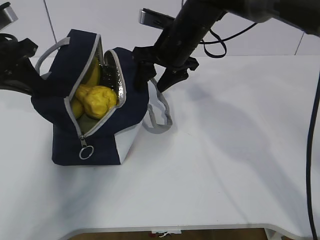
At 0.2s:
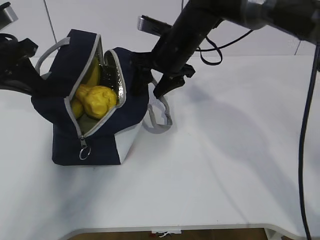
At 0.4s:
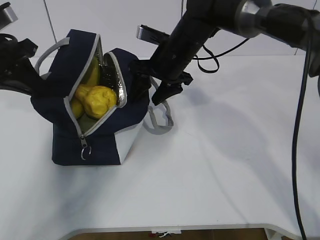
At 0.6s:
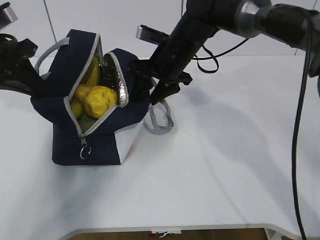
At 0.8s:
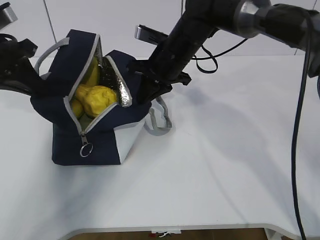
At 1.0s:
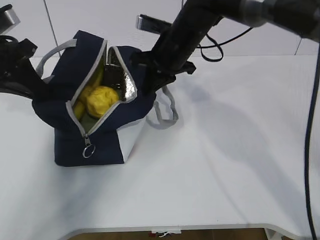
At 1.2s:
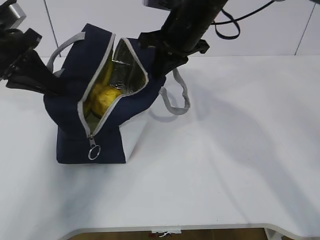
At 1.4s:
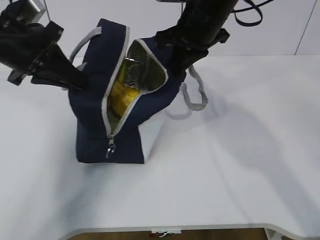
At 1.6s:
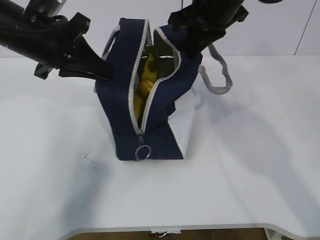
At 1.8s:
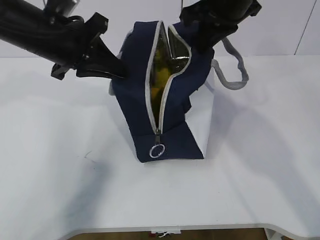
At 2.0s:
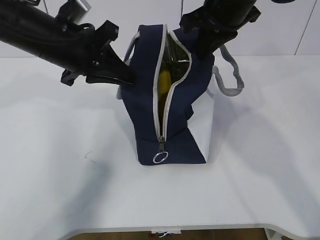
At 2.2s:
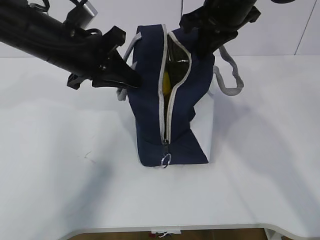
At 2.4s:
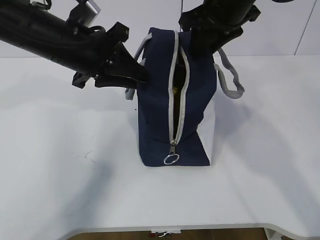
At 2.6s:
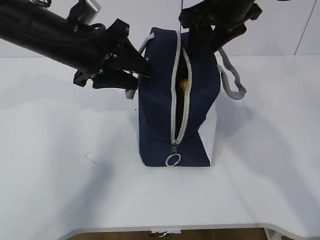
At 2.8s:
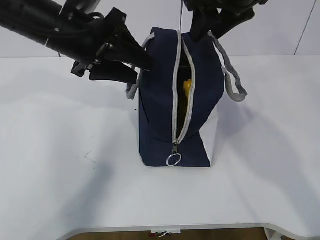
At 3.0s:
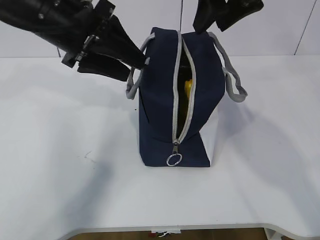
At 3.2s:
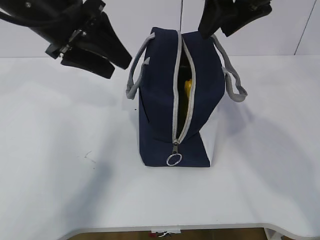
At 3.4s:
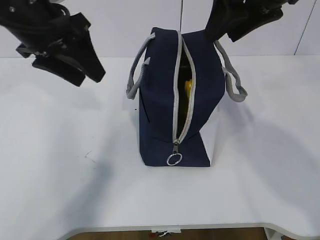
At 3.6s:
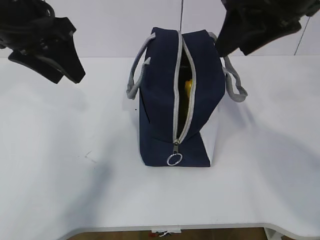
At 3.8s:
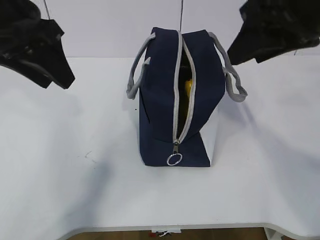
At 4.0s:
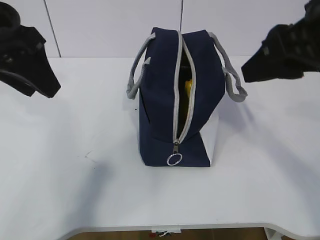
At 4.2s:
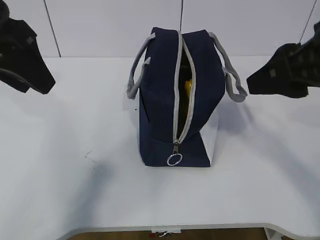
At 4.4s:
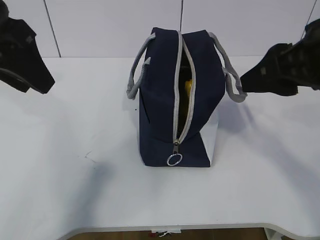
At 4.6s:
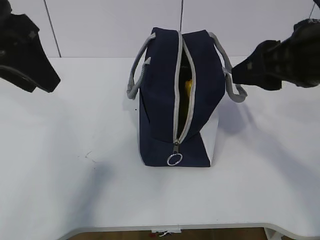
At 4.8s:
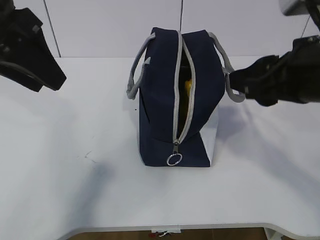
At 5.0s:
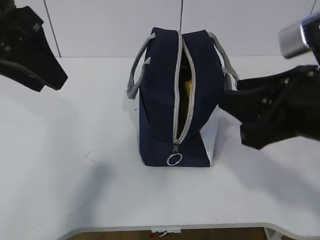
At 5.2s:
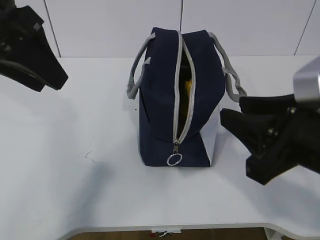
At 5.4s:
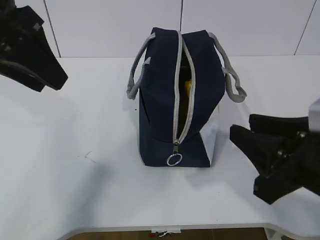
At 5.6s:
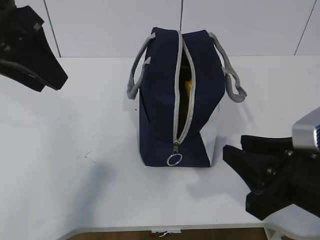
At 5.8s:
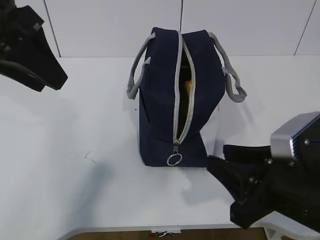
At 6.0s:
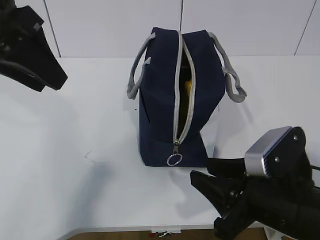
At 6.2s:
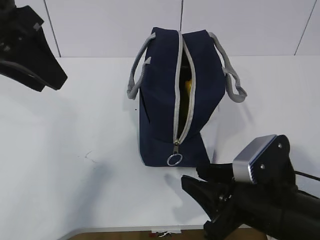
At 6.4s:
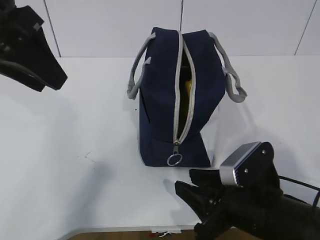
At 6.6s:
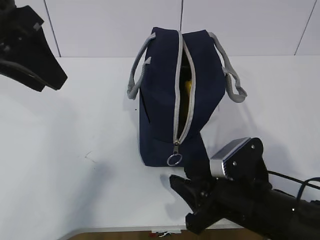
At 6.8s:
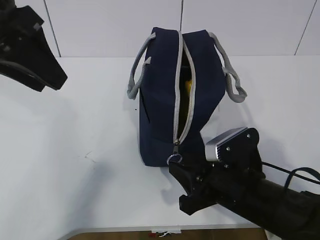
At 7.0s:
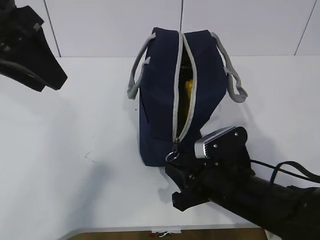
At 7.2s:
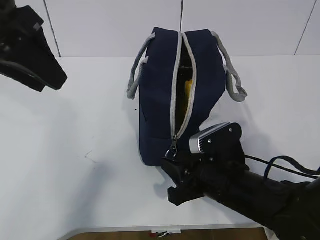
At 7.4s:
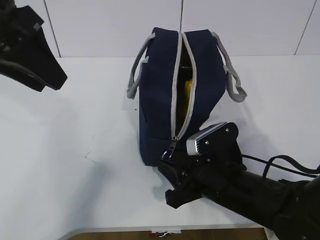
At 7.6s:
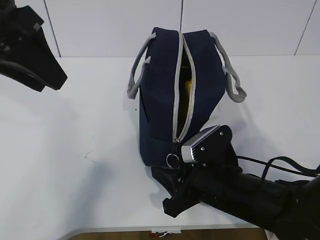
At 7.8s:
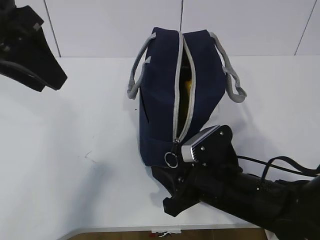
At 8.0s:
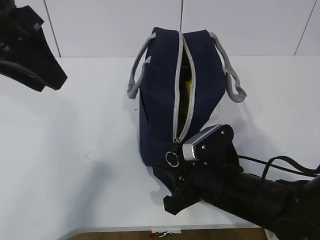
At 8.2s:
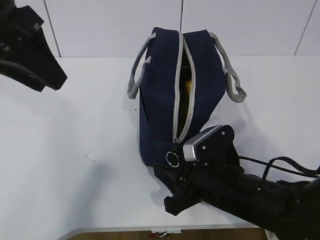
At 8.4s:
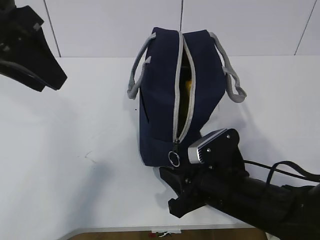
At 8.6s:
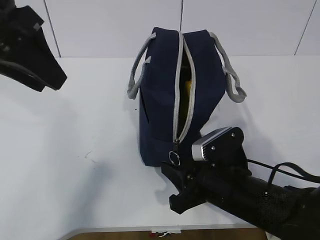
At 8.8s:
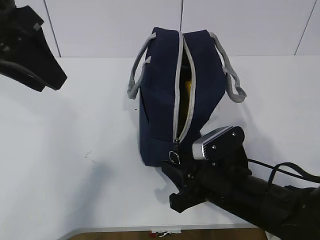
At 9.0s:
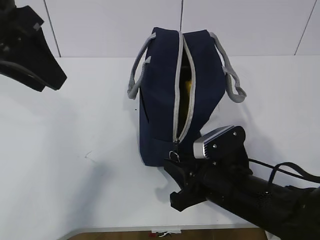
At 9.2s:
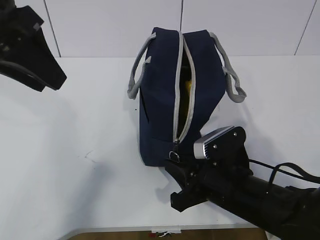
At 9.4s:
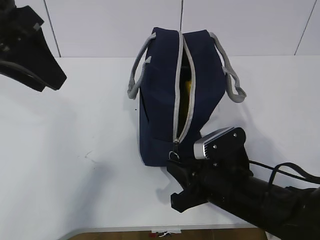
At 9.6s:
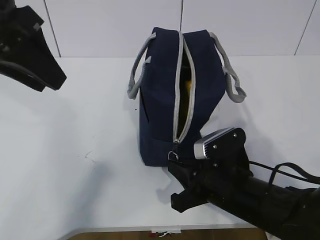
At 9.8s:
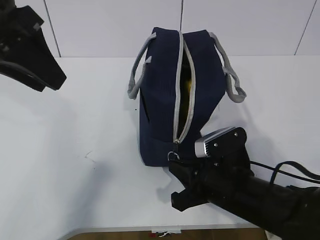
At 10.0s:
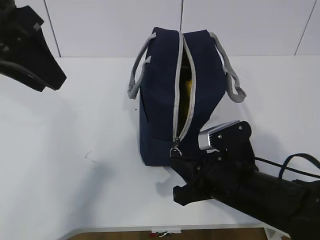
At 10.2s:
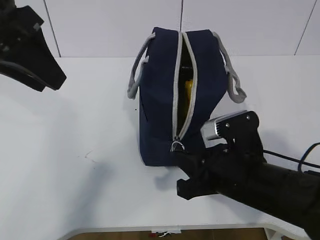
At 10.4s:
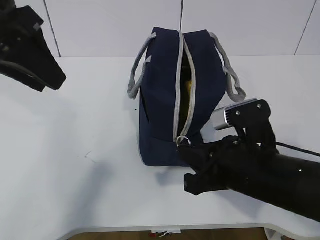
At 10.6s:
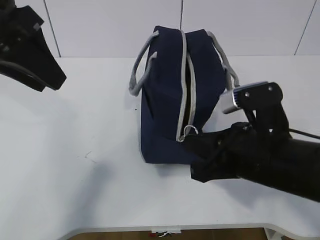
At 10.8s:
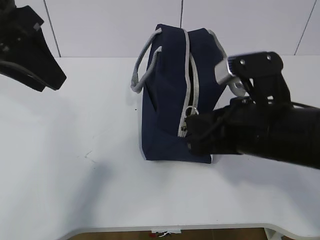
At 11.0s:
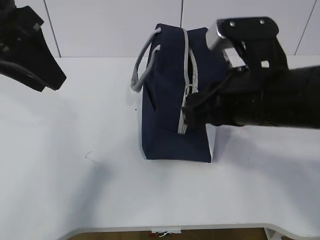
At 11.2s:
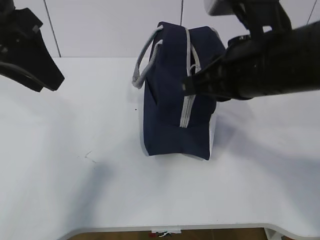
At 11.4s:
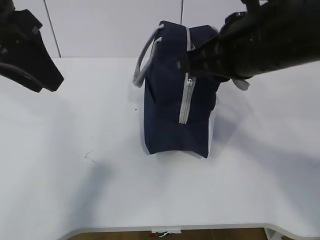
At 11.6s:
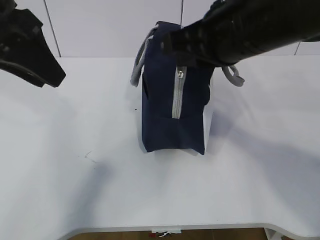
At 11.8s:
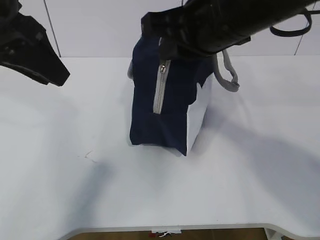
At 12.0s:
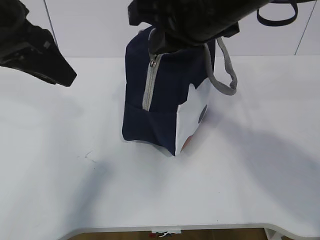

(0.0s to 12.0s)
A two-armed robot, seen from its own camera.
0.0s - 1.6s: The left gripper goes approximately 10 cm to the right; the right gripper travels upward by some 10 cm, and closes.
1.6s - 3.0s: The left gripper opens its fingers, while the right gripper moves about 5 cm, and opens up.
3.0s - 4.4s: The right gripper is displaced backward by approximately 15 cm. Meanwhile the left gripper shifts some 10 cm backward and to the left.
4.4s - 6.0s: The right gripper shifts roughly 15 cm downward.
6.0s - 7.6s: The right gripper heads forward, downward and to the left, covering some 10 cm.
7.6s - 9.0s: There are only small adjustments of the grippers.
9.0s - 10.4s: The right gripper is displaced upward by some 5 cm, and closes.
10.4s - 12.0s: The right gripper moves upward and forward, some 20 cm.

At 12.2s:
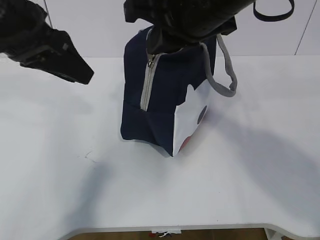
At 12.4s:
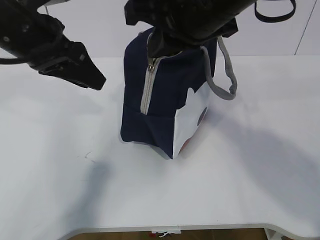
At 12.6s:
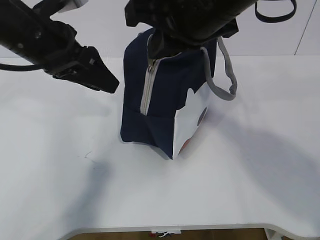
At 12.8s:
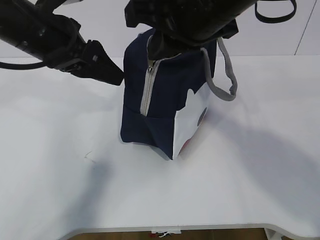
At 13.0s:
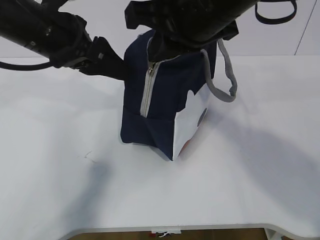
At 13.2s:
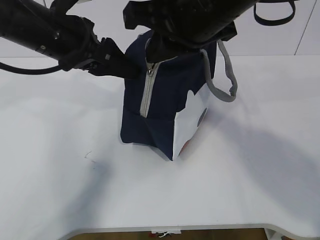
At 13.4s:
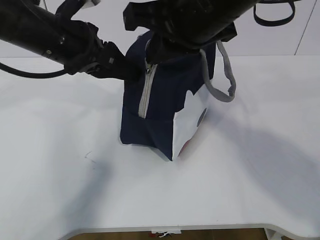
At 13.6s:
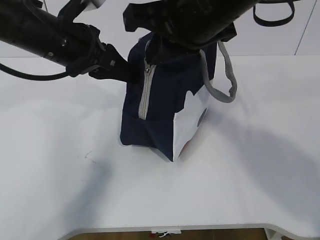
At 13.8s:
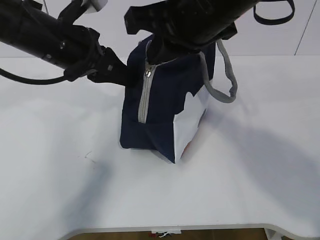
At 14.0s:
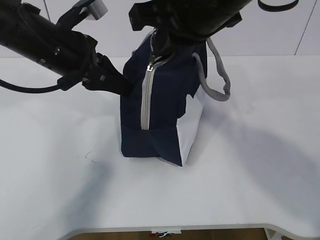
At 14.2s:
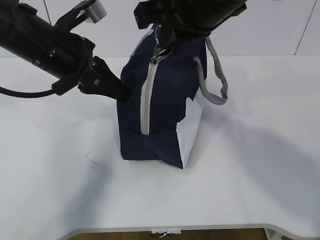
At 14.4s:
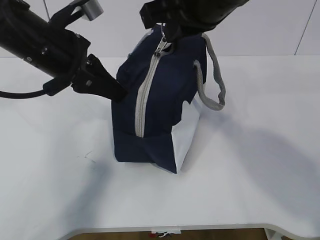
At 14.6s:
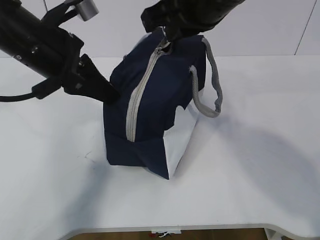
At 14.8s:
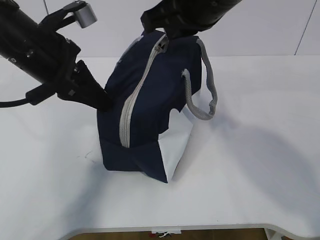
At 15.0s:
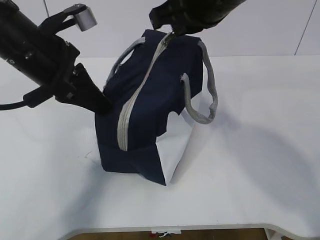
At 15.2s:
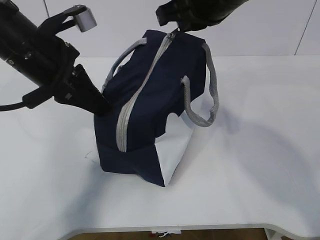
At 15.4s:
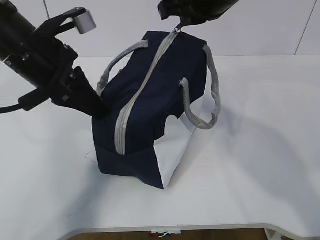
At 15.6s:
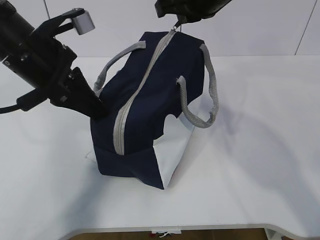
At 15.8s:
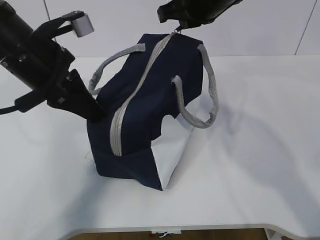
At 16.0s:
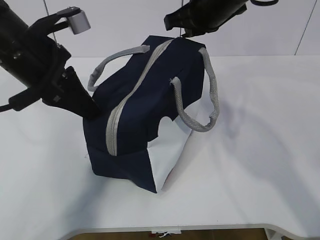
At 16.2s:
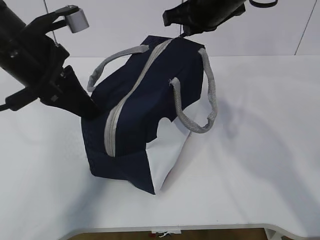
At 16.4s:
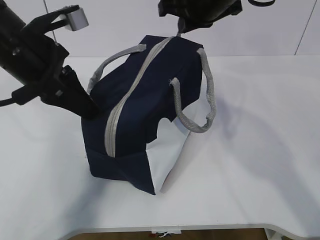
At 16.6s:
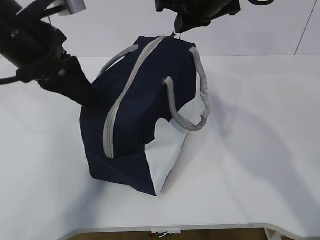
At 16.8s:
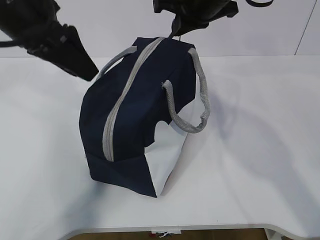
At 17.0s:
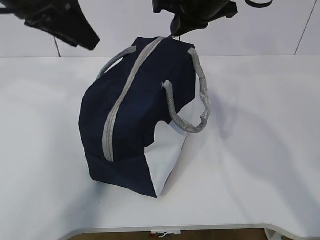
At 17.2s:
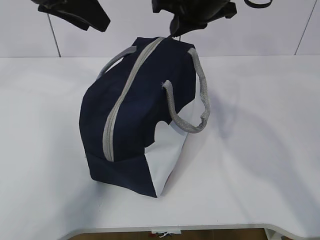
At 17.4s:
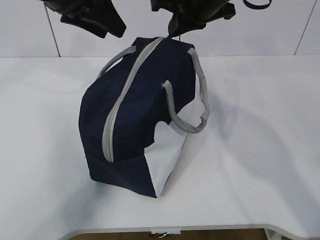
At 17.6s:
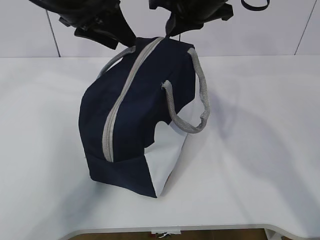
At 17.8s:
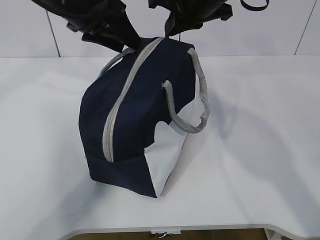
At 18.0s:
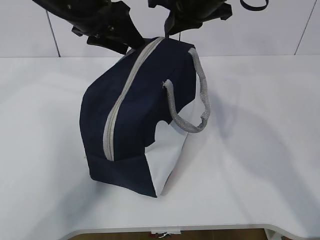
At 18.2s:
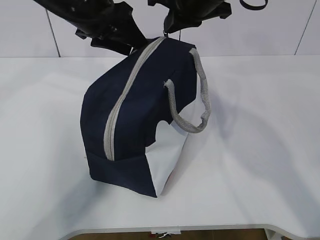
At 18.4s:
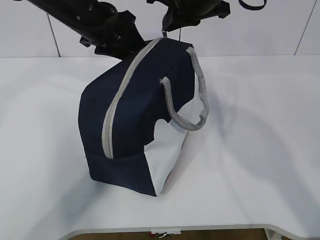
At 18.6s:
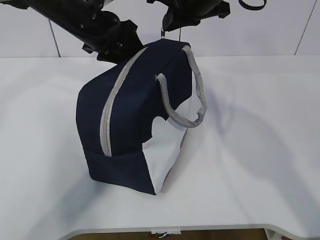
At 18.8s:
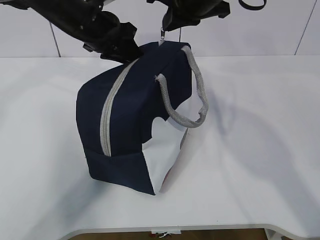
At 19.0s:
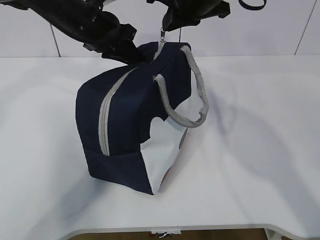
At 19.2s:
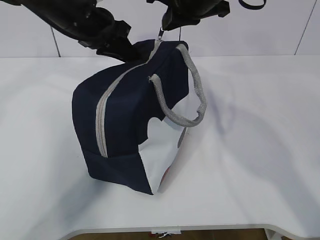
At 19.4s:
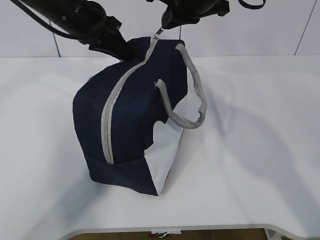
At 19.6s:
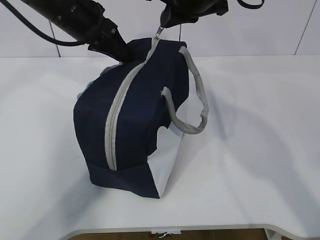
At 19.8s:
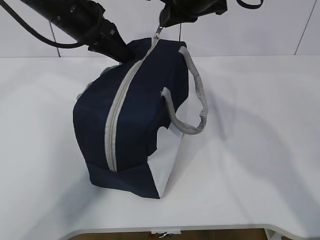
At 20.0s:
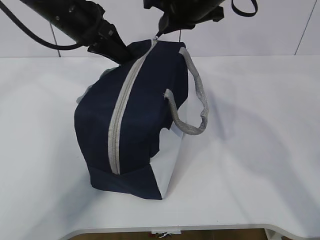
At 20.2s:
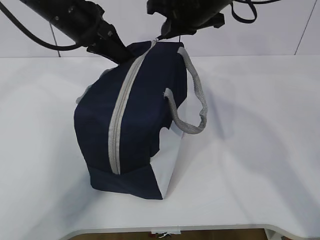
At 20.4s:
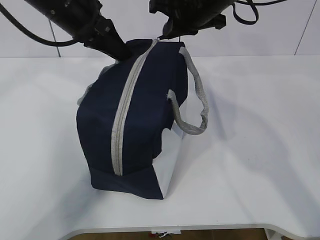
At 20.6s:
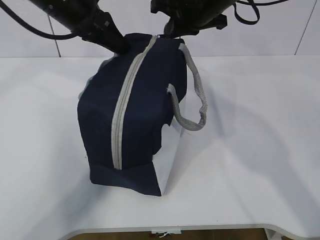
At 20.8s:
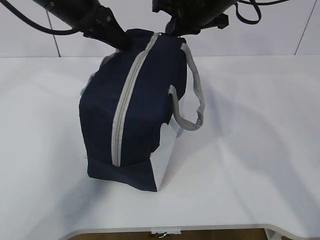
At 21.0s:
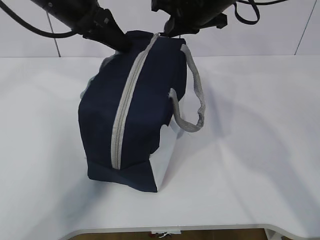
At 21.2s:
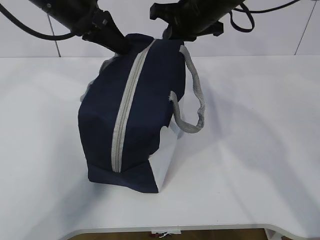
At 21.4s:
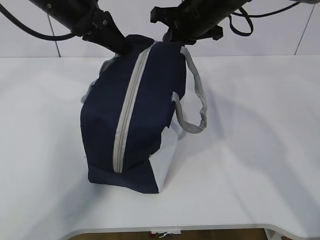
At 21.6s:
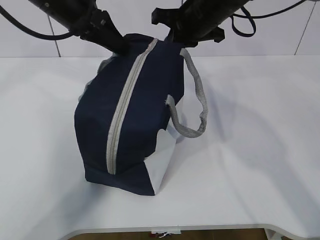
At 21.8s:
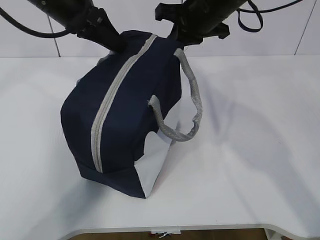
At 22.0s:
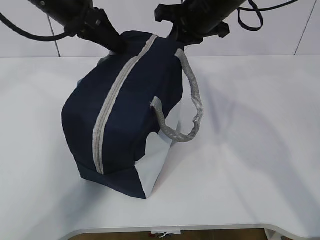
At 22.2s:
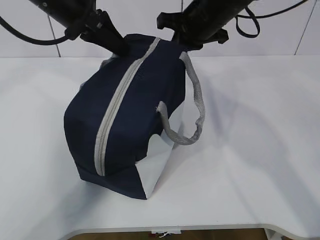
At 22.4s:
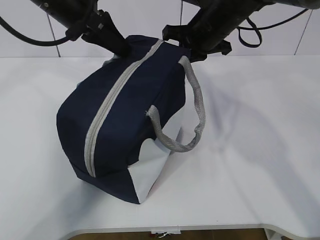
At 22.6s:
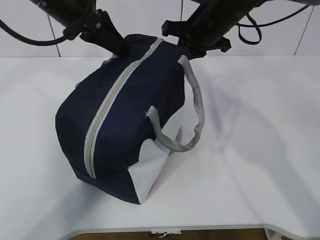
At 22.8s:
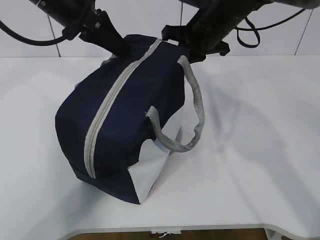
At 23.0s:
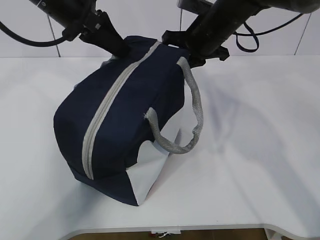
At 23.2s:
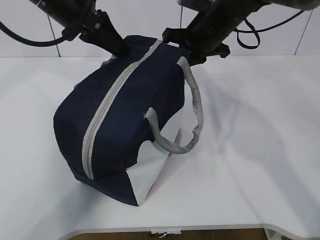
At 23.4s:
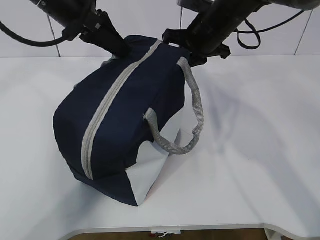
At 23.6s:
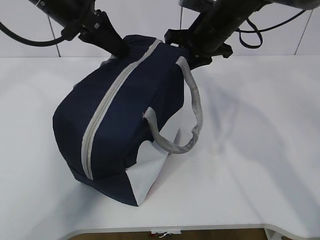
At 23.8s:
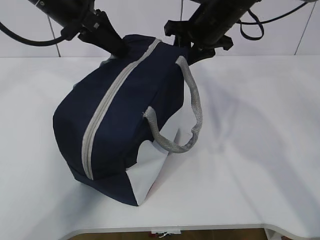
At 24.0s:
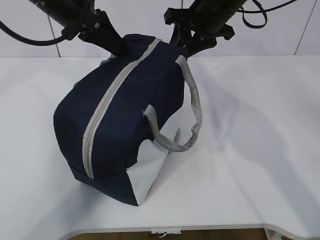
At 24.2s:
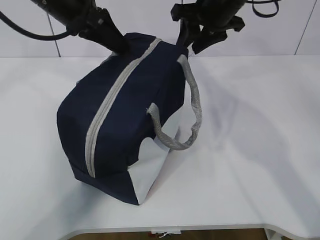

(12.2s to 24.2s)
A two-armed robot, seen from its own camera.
12.2s - 13.8s: The left gripper goes roughly 10 cm downward and forward, and closes.
13.8s - 15.2s: The right gripper goes some 5 cm forward.
15.2s - 16.6s: The right gripper shifts approximately 5 cm forward; the left gripper opens up.
16.6s - 18.2s: The left gripper moves forward, roughly 10 cm, and opens up.
18.2s - 19.8s: The left gripper closes.
19.8s - 21.2s: The right gripper changes place by roughly 5 cm.
21.2s - 22.6s: The grippers stay close to where they were, moving slightly.
22.6s - 24.2s: The right gripper opens up.
